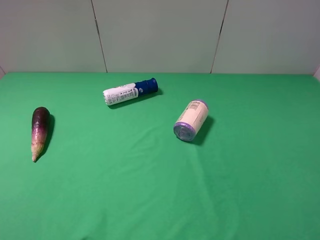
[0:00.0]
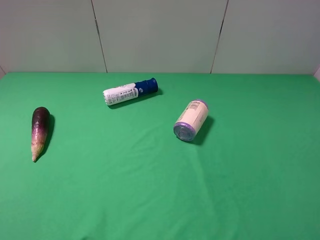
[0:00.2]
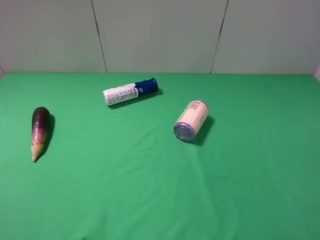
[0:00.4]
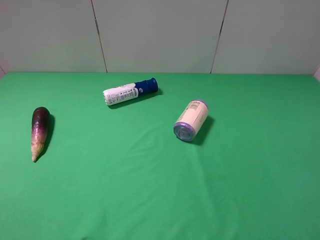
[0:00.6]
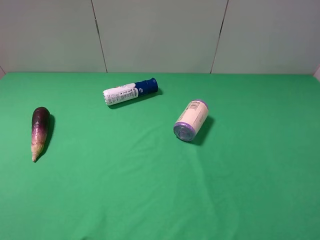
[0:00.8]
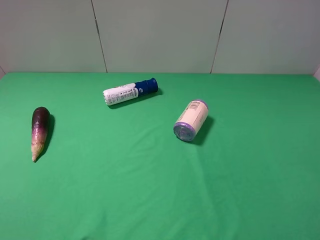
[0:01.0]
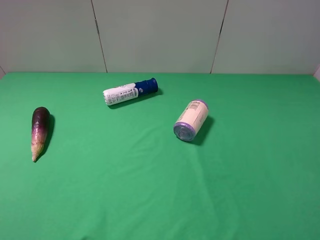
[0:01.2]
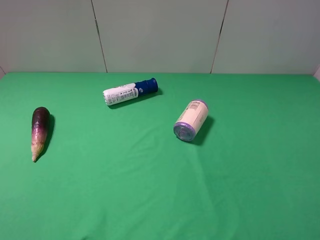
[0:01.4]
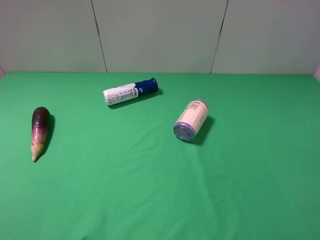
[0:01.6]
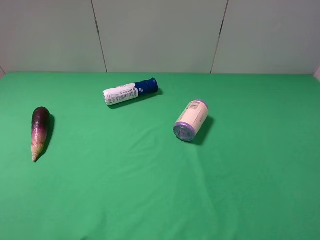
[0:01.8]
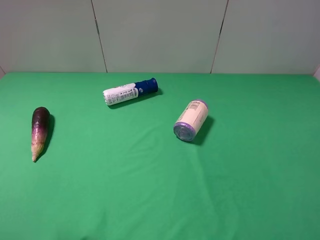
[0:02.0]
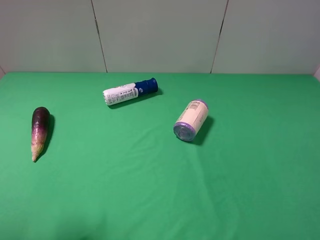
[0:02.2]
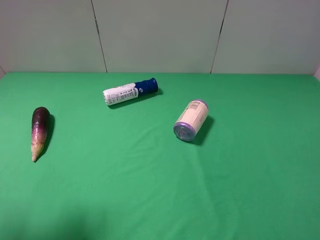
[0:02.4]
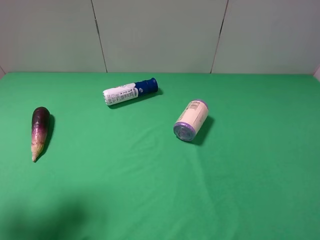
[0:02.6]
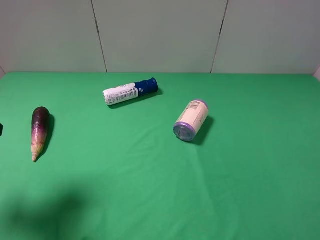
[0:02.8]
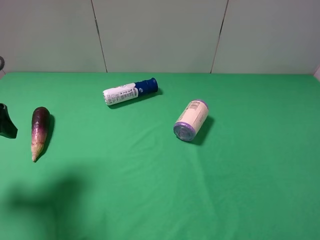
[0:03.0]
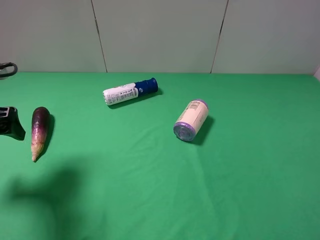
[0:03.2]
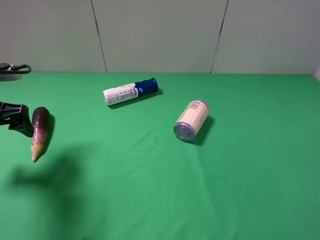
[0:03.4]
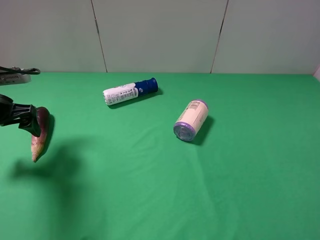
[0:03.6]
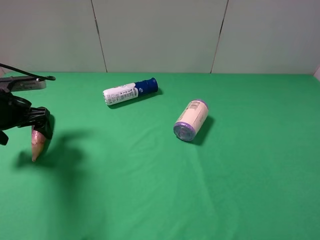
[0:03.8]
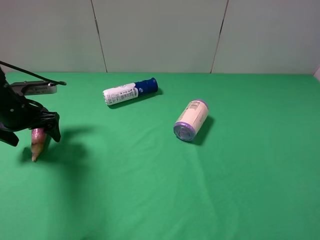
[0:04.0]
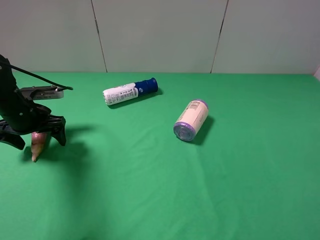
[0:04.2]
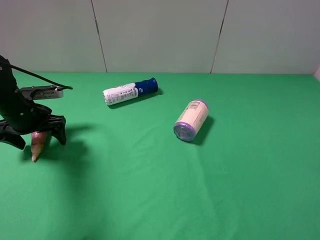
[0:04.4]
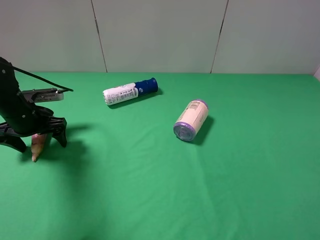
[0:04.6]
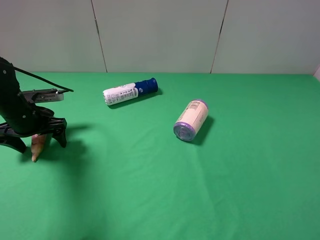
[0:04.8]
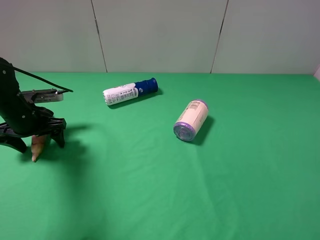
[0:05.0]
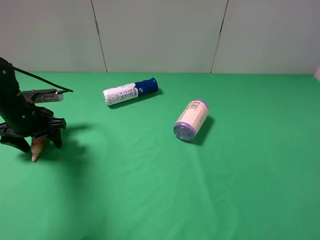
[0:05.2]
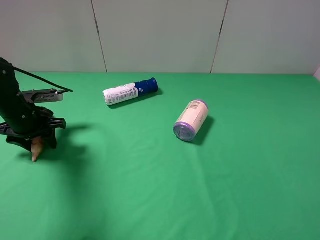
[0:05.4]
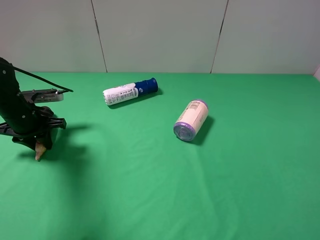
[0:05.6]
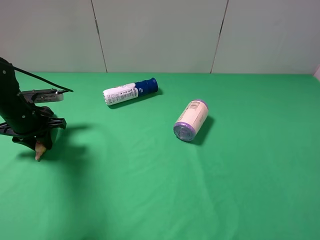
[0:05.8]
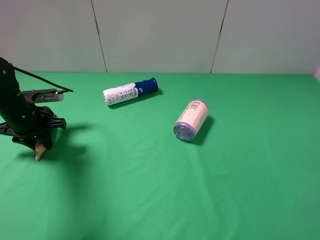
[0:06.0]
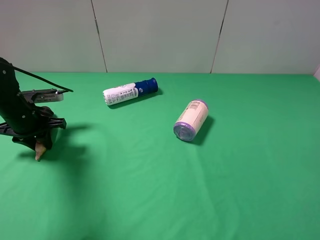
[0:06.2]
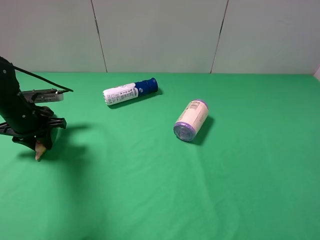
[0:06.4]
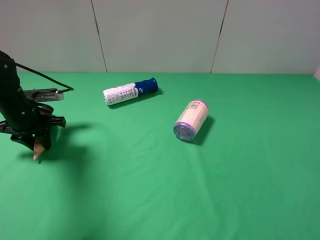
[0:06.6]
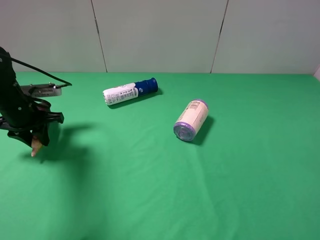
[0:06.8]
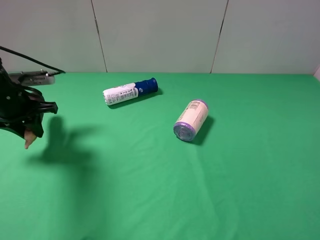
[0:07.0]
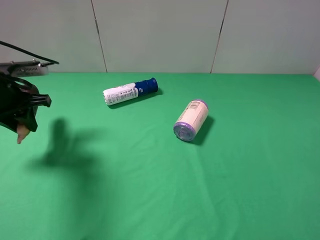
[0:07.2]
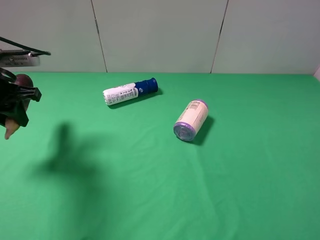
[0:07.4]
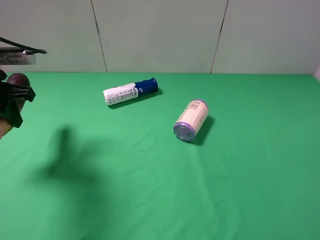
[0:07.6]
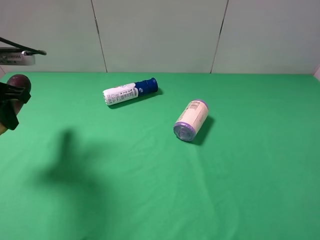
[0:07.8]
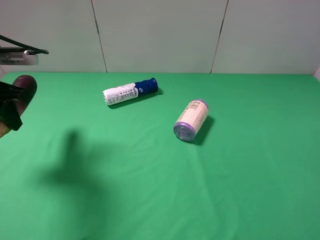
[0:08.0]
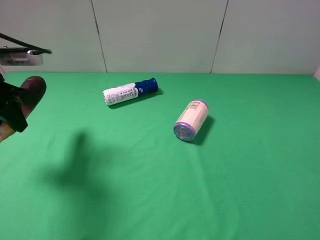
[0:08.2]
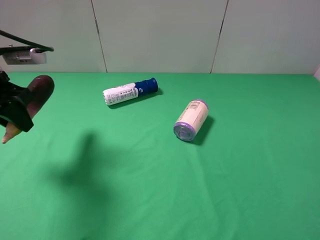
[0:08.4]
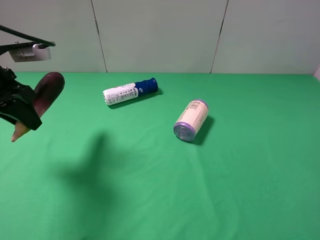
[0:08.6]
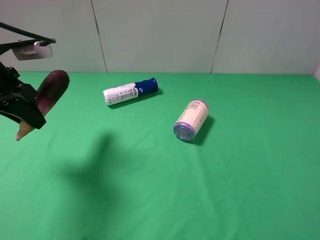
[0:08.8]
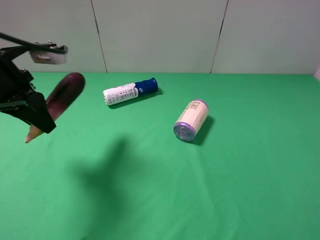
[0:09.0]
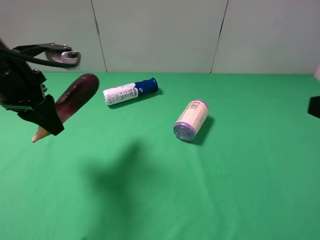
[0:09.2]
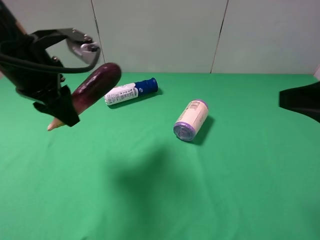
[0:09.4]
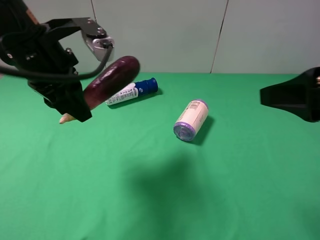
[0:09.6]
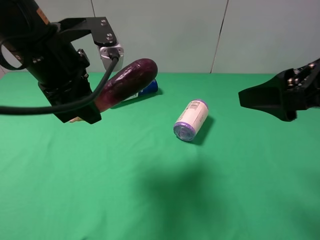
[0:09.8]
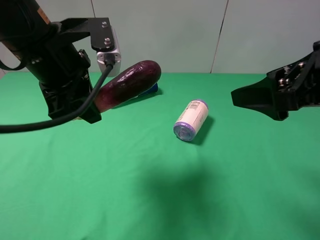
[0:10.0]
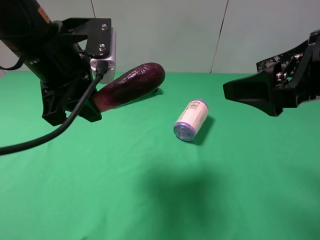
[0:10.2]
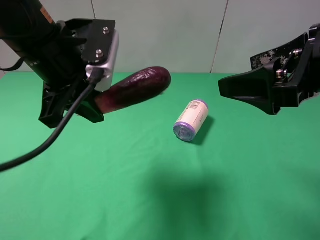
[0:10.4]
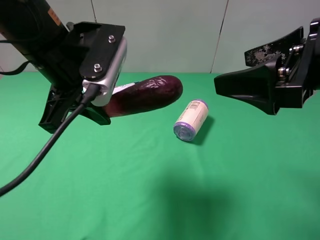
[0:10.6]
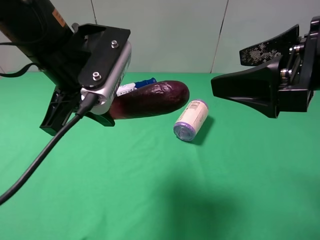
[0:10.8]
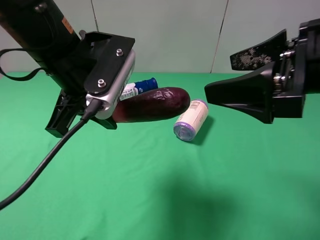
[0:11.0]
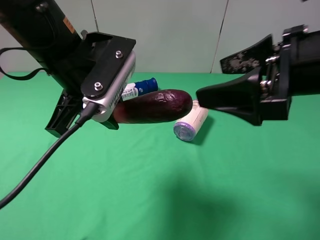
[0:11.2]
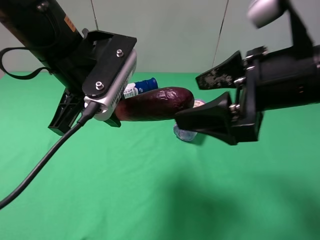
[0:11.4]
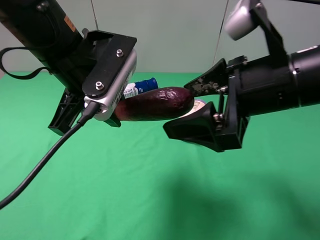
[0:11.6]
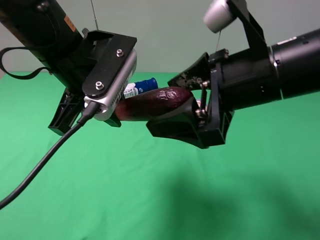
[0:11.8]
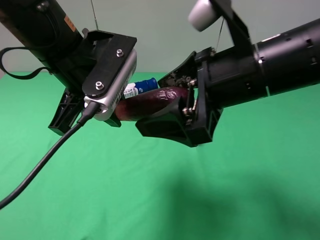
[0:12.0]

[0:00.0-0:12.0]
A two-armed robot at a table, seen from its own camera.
Task of the whole recording: use the left gripper to pick up the item and transfer it from the left gripper to the right gripper.
Step, 0:00.0 to 0:05.8: Use the left gripper to grab the eggplant on the left side of the table.
0:00.0 to 0:01.6: Both grippers stay put.
0:01.6 to 0:03.0: The left gripper travels forward by some 20 cm.
0:03.0 to 0:04.4: The left gripper is displaced downward and forward by roughly 15 cm.
0:04.4 to 0:06.0: The left gripper closes.
0:06.0 to 0:07.6: The left gripper shifts approximately 15 cm upward.
0:07.6 to 0:09.0: The left gripper moves to the right, some 5 cm. The right gripper heads forward, covering roughly 5 cm.
0:09.0 to 0:10.4: The left gripper travels to the right by roughly 10 cm. The right gripper is displaced forward and to the left by some 10 cm.
0:10.4 to 0:12.0: The right gripper travels to the left by some 10 cm.

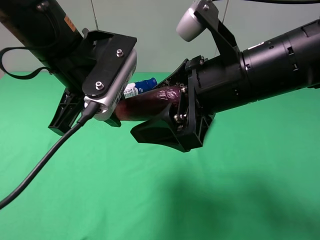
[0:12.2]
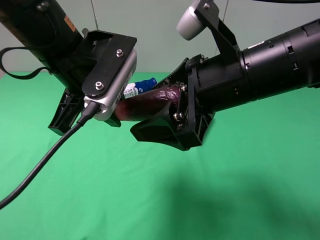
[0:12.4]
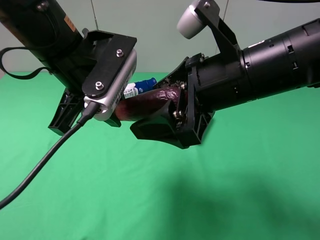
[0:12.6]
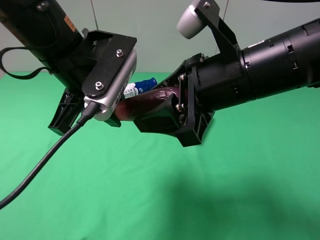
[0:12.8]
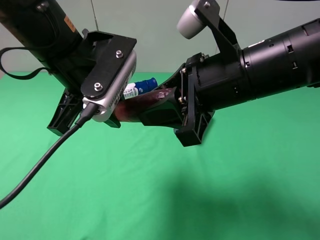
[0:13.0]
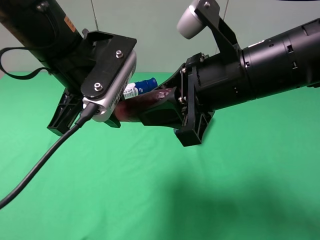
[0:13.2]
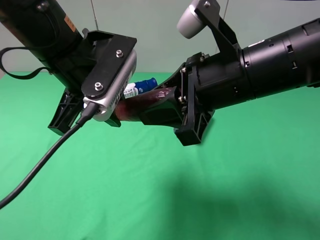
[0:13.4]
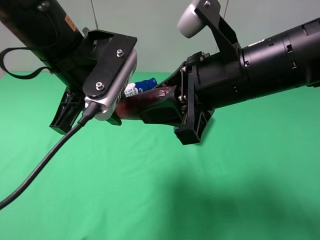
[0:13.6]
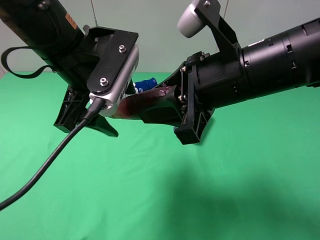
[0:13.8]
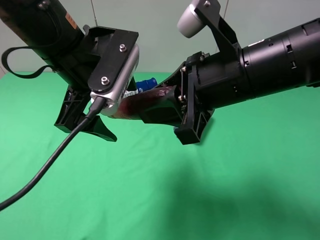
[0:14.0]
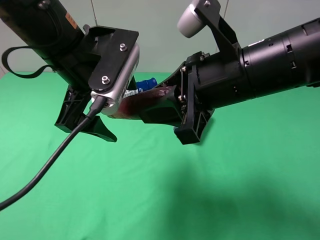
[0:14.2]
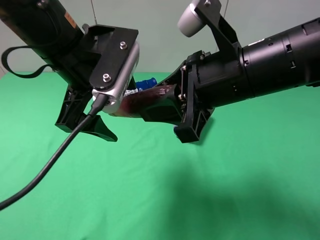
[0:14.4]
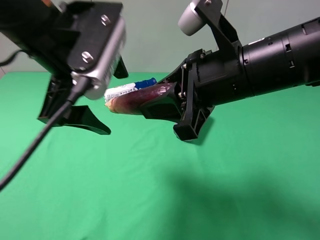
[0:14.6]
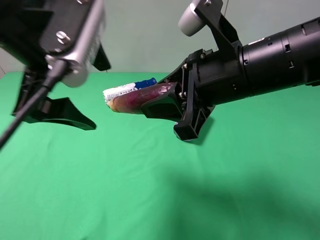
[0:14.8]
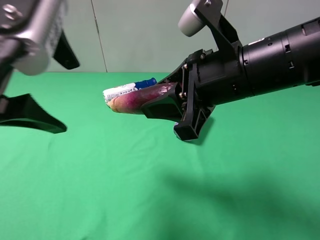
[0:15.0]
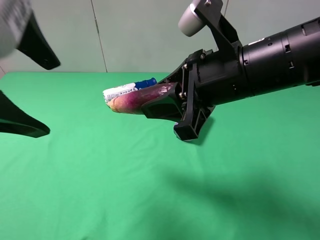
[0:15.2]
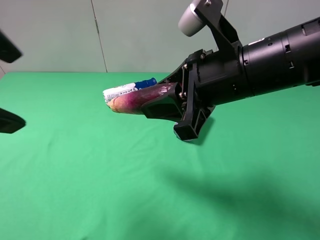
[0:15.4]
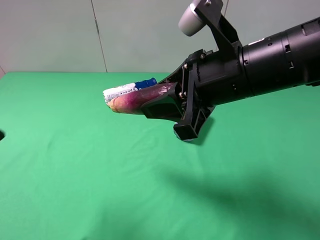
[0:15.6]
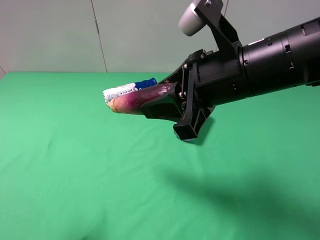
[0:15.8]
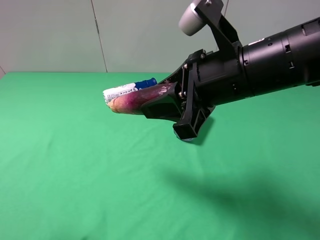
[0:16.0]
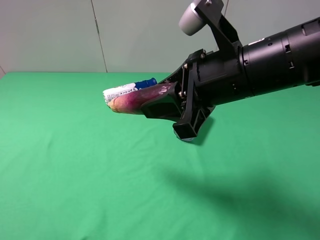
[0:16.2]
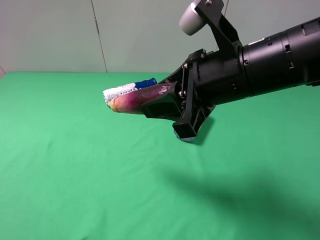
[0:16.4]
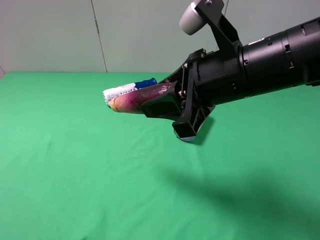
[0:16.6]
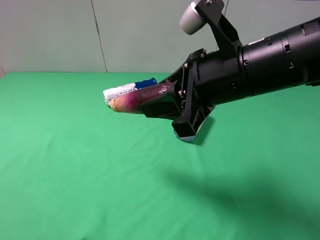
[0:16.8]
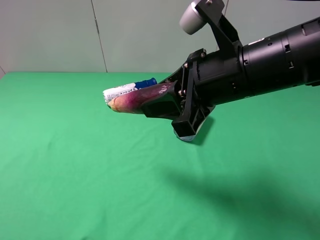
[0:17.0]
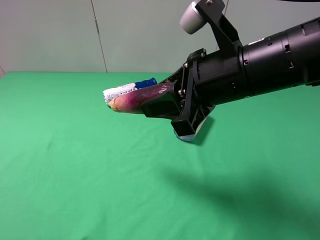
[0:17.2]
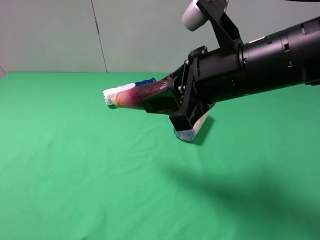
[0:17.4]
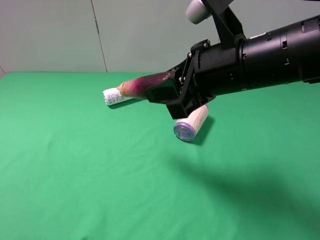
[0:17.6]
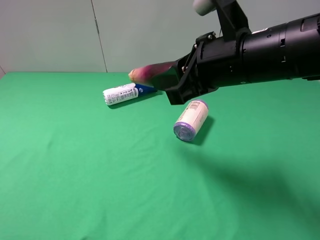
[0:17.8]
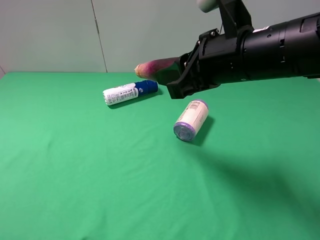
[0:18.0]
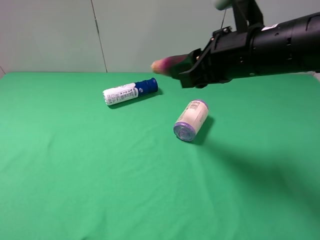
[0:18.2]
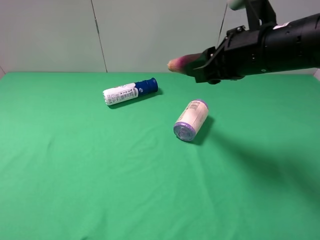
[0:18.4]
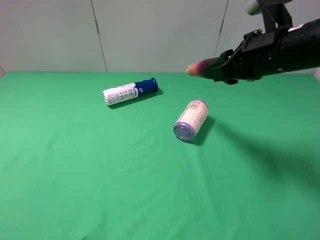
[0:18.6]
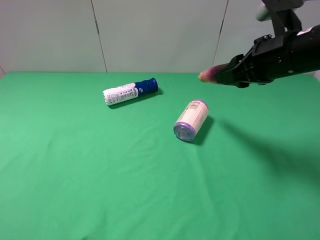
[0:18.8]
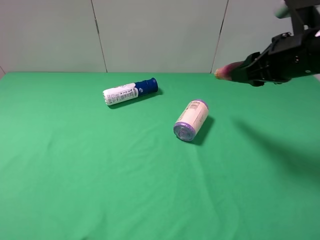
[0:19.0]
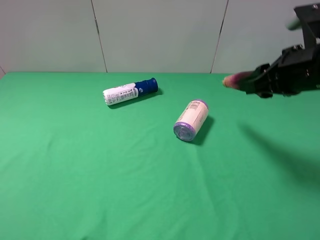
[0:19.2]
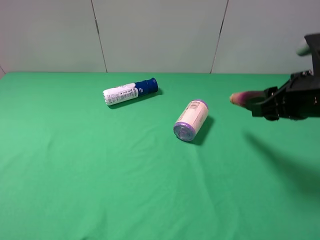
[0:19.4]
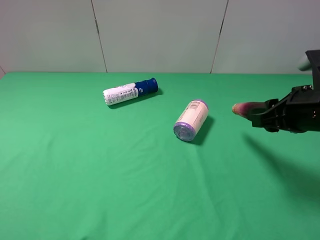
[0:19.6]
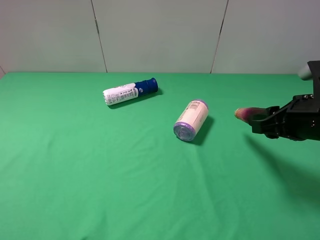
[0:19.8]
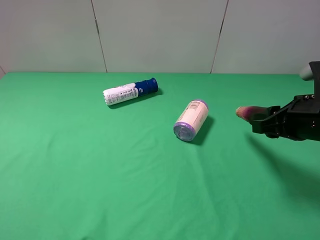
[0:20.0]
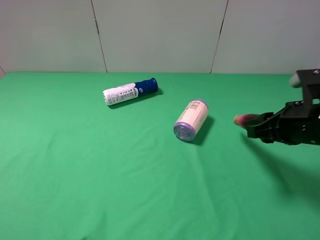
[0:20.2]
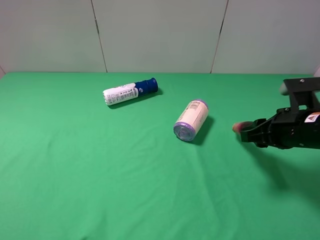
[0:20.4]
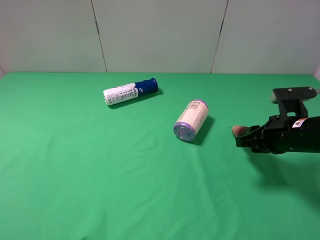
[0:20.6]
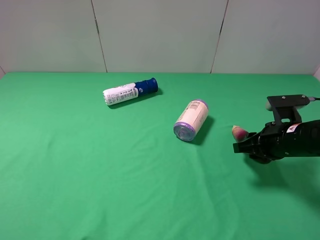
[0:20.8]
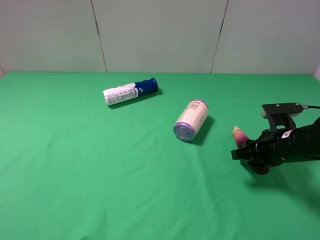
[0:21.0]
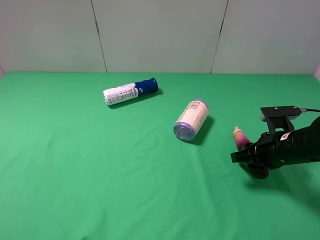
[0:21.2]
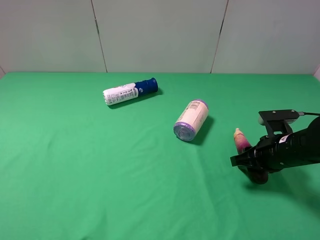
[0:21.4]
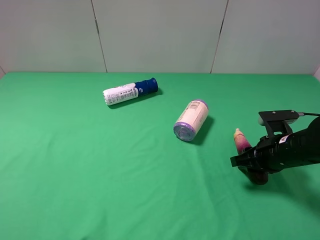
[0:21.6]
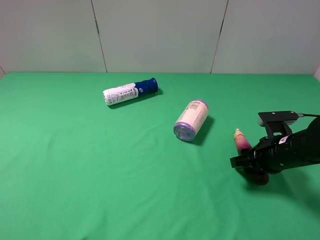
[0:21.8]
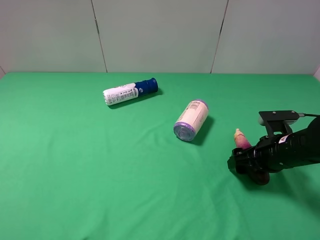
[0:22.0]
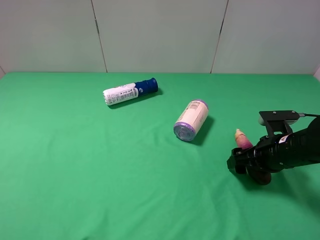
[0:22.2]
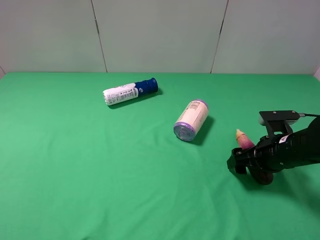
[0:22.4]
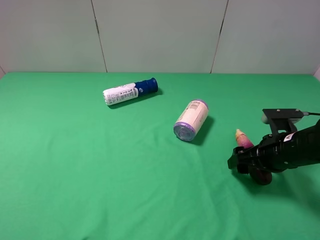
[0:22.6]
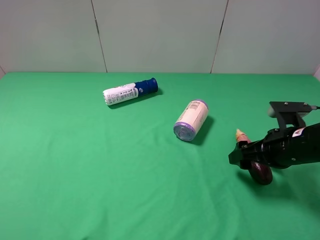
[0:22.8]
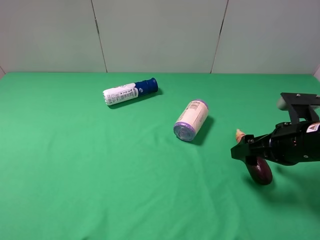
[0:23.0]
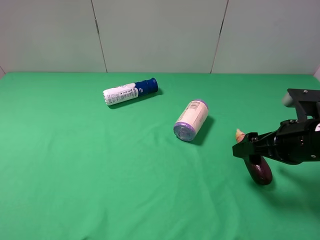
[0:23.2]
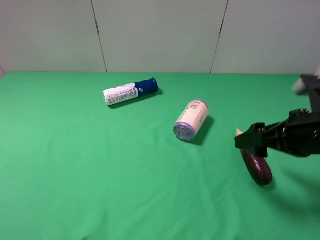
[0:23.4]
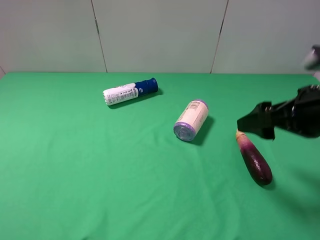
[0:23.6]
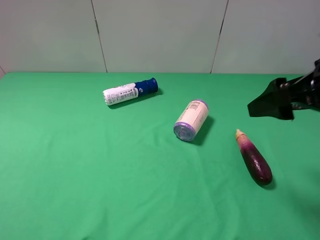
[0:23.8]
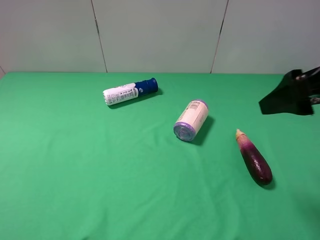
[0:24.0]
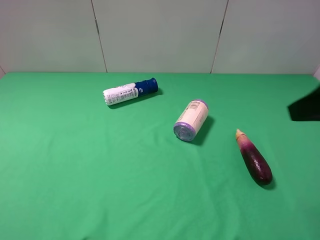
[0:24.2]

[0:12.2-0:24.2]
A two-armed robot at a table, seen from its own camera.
Task of the whole recording: use the left gripper to pick up the item and transfer it from the left gripper to the right gripper.
Step, 0:14.2 to 0:23.2: The right gripper places eggplant on the right side of the table.
0:12.2 to 0:13.8: The right gripper closes up; the left gripper opens.
0:13.8 to 0:15.2: The left gripper is displaced upward, backward and to the left by approximately 15 cm.
0:15.2 to 0:16.6: The left gripper moves backward, to the left and downward, some 20 cm.
0:16.6 to 0:18.2: The right gripper changes place by approximately 5 cm.
0:18.2 to 0:19.8: The right gripper moves to the right, downward and backward, approximately 15 cm.
0:19.8 to 0:21.2: The right gripper goes approximately 10 cm downward.
0:21.2 to 0:22.6: The right gripper opens.
0:22.6 to 0:24.2: The right gripper is displaced upward and backward by approximately 25 cm.
